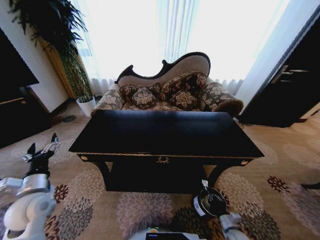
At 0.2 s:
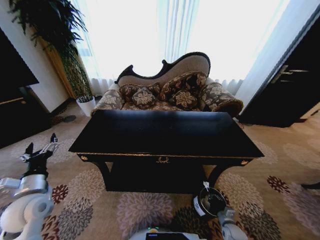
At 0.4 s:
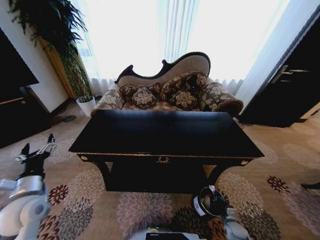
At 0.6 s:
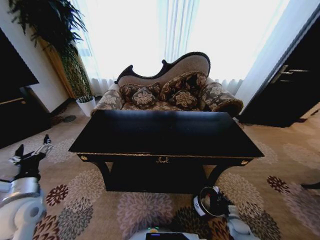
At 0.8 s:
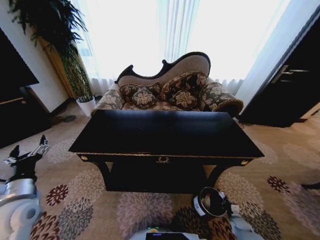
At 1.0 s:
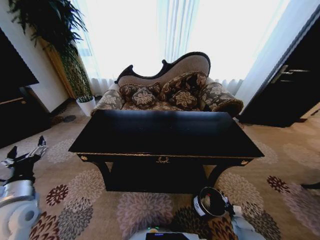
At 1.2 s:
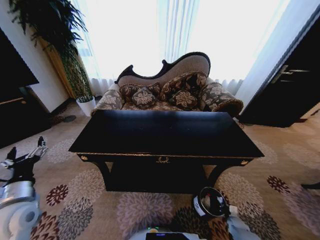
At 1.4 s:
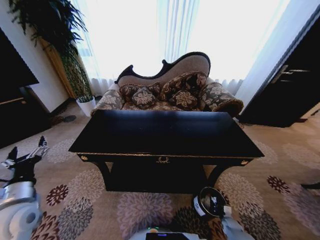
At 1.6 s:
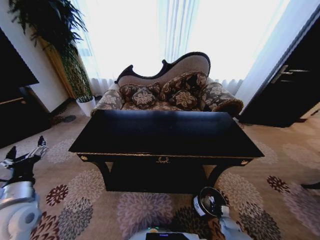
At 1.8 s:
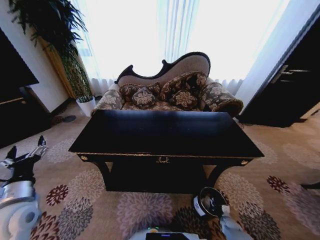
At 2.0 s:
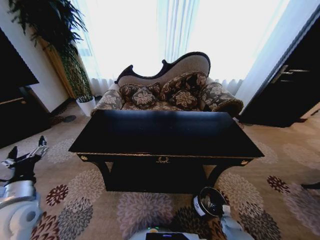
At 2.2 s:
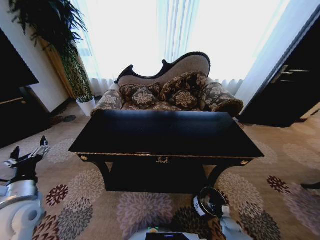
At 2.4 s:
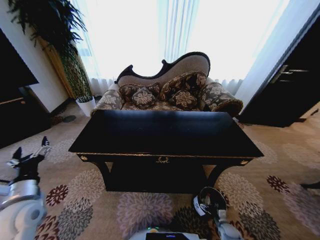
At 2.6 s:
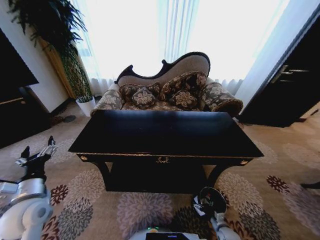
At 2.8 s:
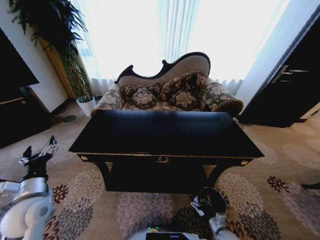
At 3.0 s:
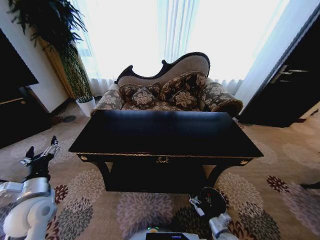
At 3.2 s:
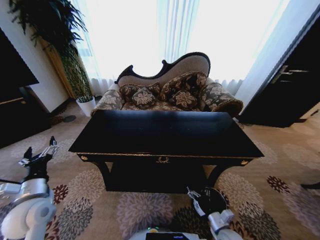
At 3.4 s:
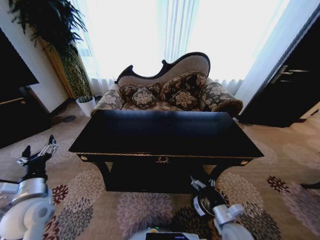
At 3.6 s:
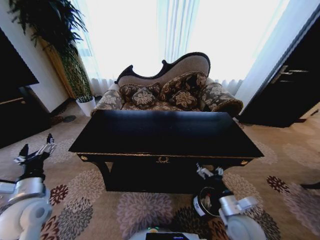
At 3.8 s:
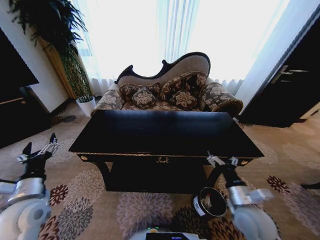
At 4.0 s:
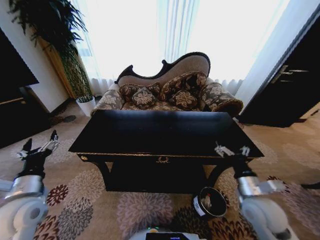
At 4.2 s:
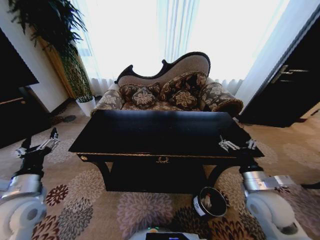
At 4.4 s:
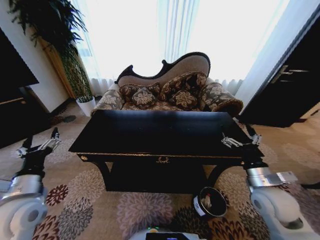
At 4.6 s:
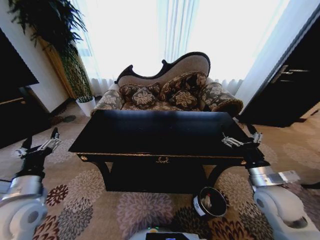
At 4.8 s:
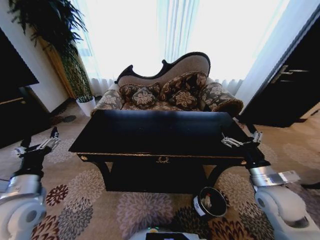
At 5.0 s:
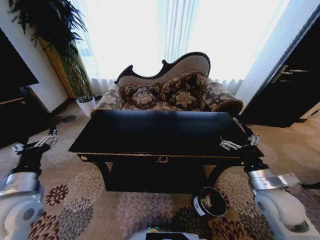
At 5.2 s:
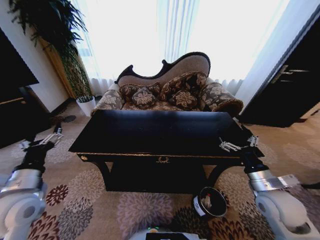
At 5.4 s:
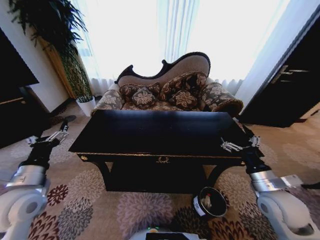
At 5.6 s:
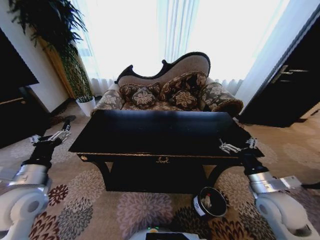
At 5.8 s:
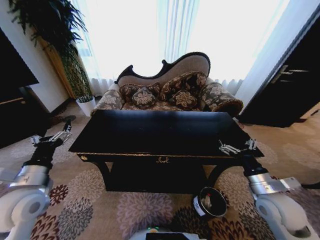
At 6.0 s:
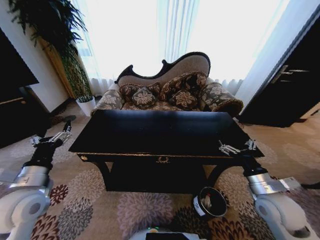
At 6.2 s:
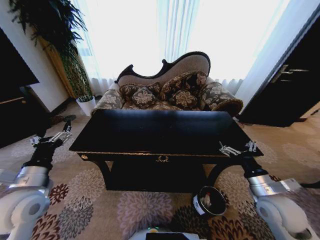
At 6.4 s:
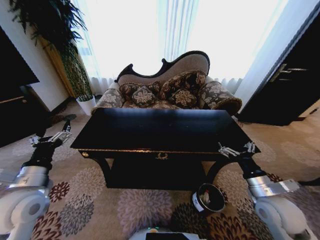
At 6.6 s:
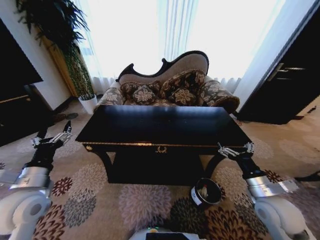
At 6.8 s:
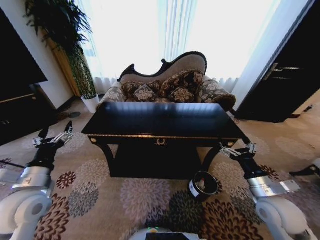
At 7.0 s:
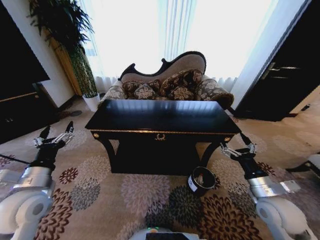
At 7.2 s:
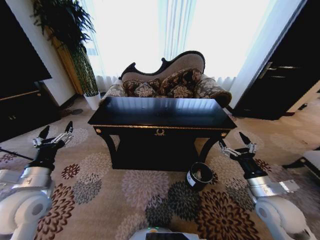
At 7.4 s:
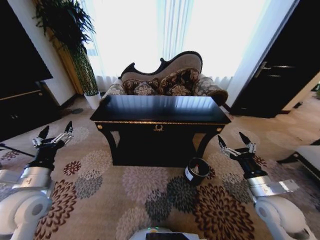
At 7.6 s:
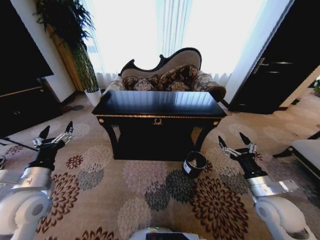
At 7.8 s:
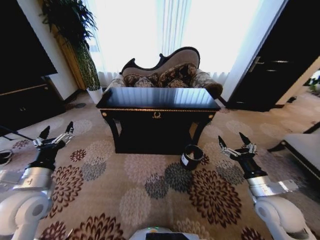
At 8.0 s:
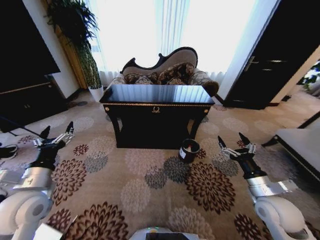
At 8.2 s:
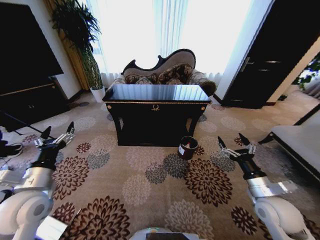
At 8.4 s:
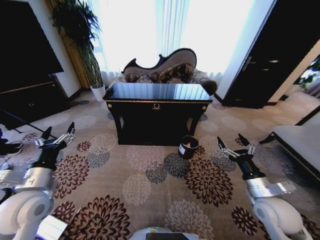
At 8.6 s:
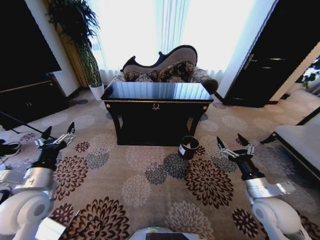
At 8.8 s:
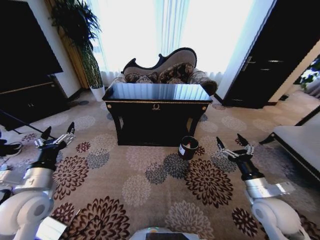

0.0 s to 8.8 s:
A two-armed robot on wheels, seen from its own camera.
Task of the whole recording: Move to the front of the table and place the trash on the table into the trash bin.
0.0 to 1.4 s: The right gripper goes approximately 15 cm downward, to the right and forward.
1.4 to 3.0 s: The right gripper shifts approximately 20 cm upward, to the left and backward, and opens.
3.0 to 4.4 s: The right gripper goes approximately 30 cm upward.
4.4 to 5.8 s: The grippers make only small movements.

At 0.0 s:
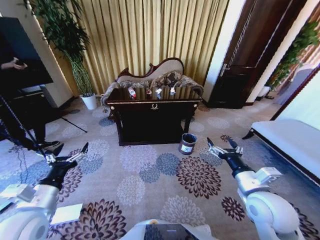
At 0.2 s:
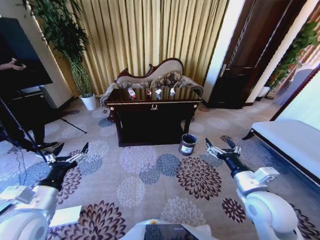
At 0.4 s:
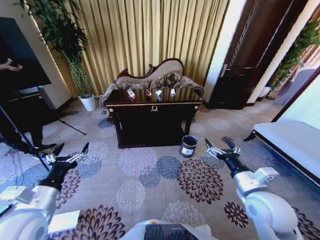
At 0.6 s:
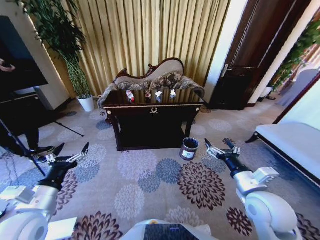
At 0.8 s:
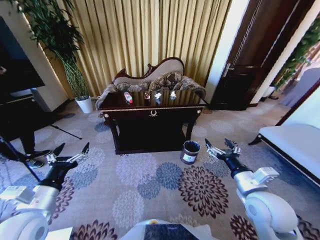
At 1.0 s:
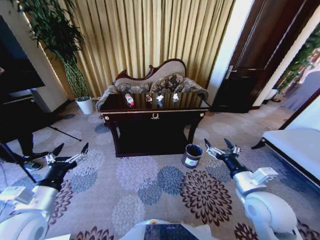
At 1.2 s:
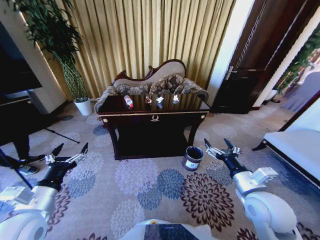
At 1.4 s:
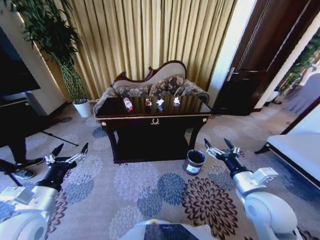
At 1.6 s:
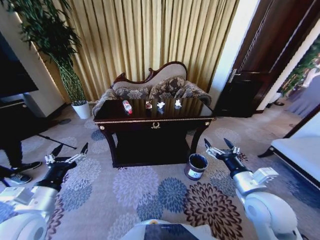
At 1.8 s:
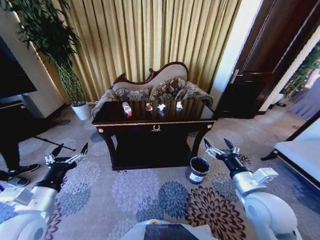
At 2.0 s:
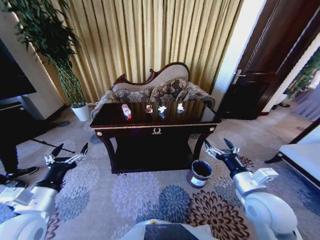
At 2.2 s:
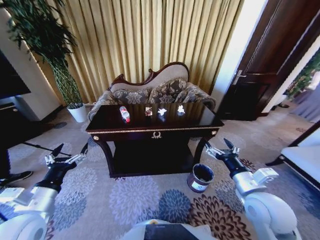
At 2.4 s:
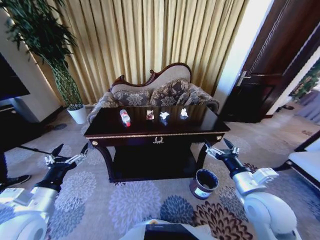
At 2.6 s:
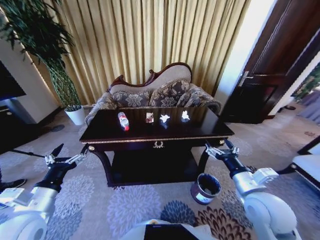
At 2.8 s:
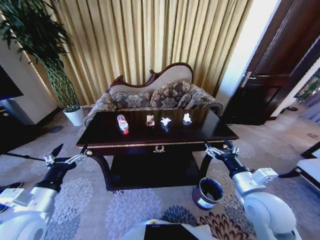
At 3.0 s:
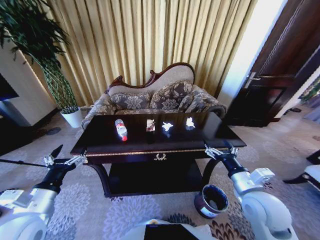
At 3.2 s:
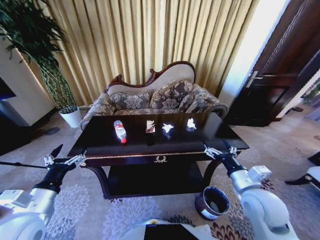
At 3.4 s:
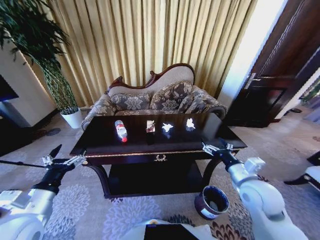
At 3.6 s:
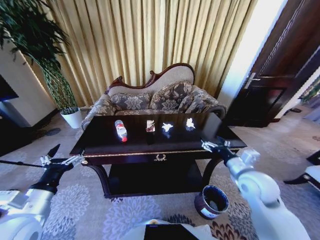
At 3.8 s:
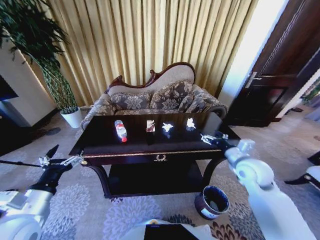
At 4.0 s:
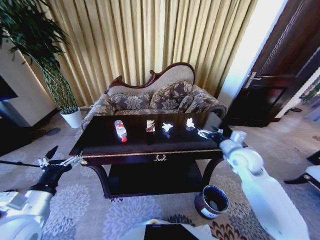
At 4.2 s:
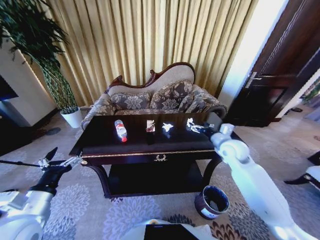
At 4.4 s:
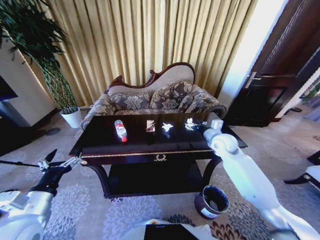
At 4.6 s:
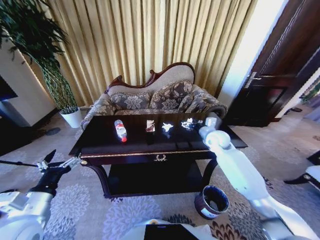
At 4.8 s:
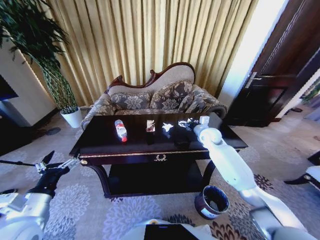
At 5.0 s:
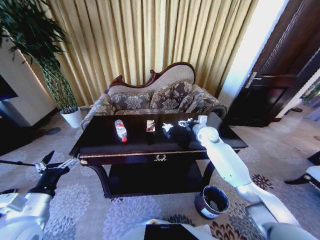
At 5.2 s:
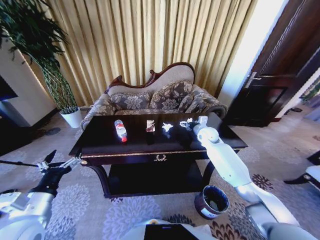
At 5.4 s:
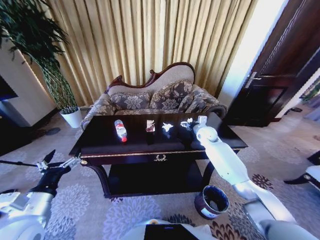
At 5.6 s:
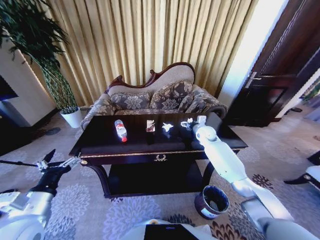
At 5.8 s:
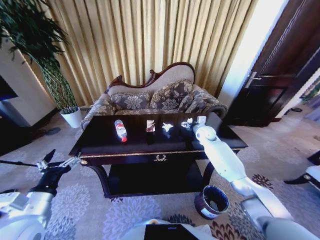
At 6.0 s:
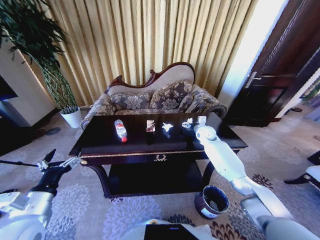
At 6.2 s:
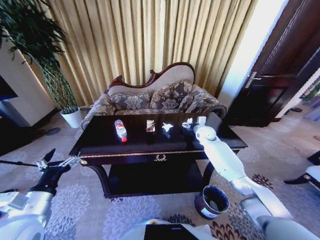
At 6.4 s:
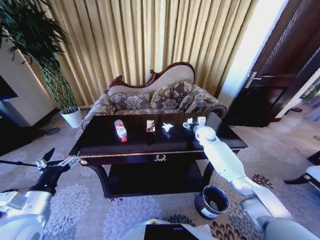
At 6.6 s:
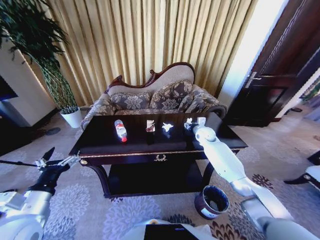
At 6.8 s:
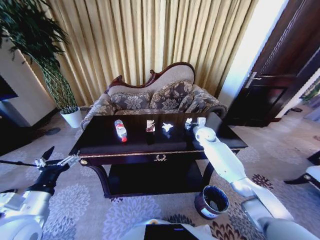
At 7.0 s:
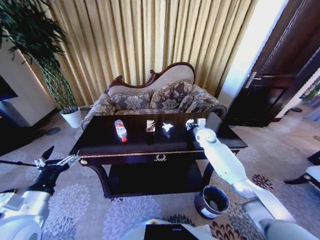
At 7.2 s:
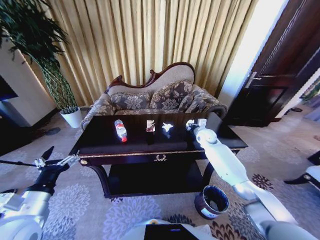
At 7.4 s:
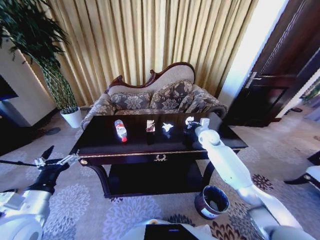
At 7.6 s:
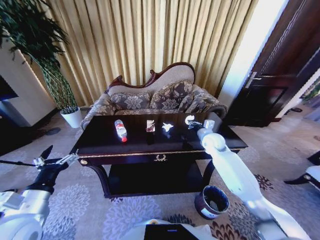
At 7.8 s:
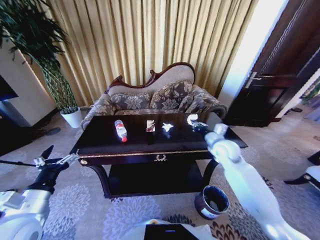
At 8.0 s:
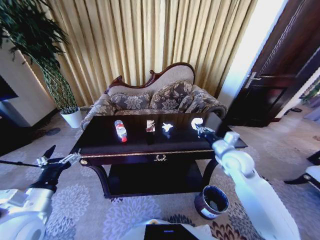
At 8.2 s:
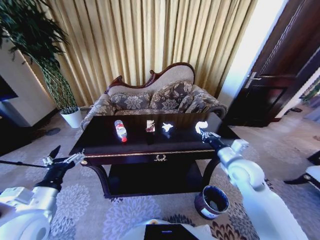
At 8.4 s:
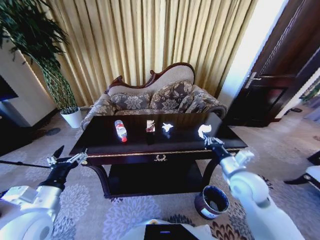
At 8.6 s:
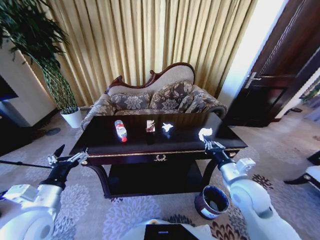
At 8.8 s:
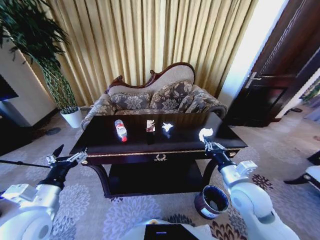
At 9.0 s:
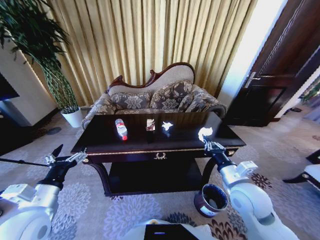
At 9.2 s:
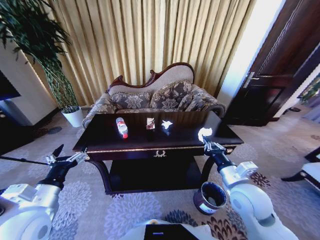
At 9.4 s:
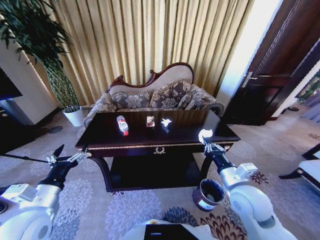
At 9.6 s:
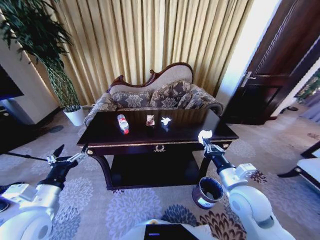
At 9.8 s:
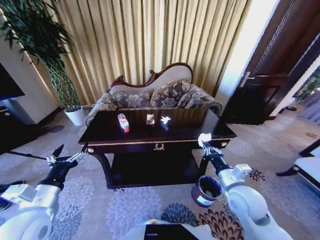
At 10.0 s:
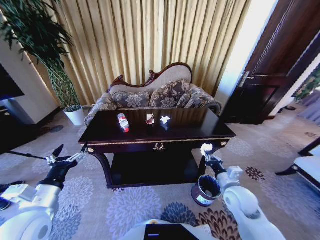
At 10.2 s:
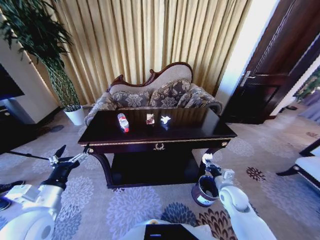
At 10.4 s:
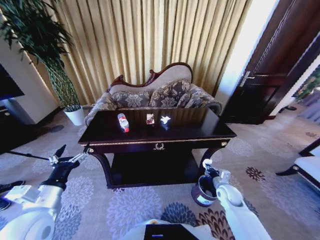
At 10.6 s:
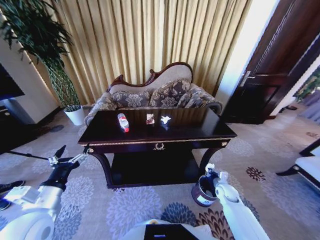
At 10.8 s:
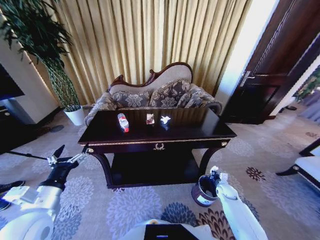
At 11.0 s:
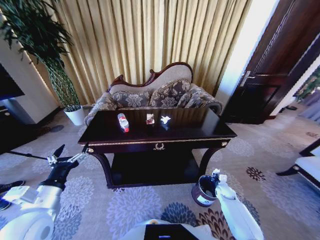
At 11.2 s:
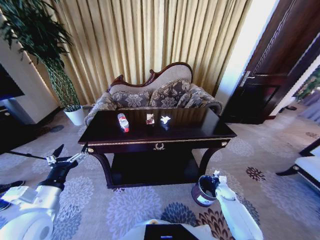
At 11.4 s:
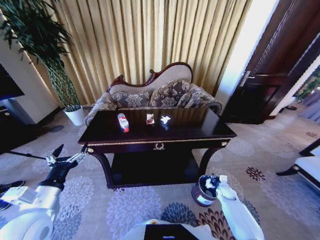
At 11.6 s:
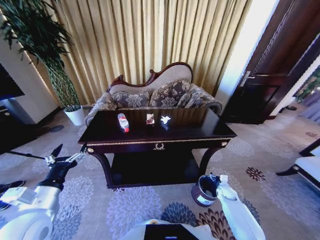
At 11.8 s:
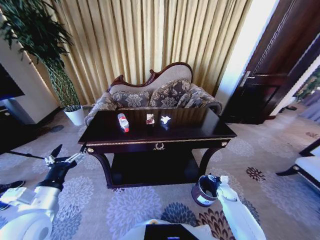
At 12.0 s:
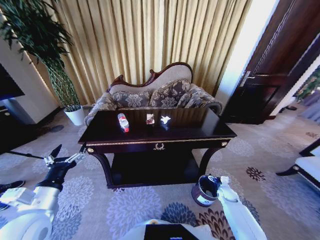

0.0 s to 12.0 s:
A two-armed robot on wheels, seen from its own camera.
Task of the whole recording: Move to the front of the table and place the trash on the table into the trash bin.
3.0 to 4.4 s: The right gripper is displaced forward by about 25 cm.
4.4 to 6.0 s: The right gripper is displaced forward by some 10 cm.
6.0 to 7.6 s: The right gripper heads backward, covering about 10 cm, and closes up.
7.6 to 9.0 s: The right gripper goes roughly 25 cm backward.
9.0 to 10.4 s: The right gripper goes roughly 20 cm downward.
10.4 to 12.0 s: The right gripper travels downward and to the right by about 15 cm, and opens.

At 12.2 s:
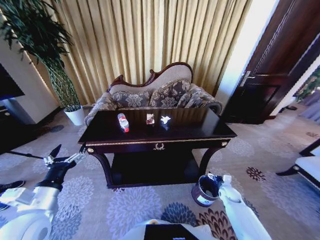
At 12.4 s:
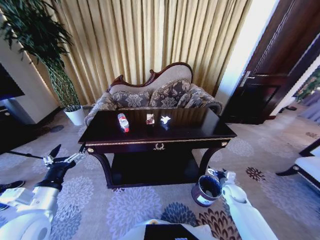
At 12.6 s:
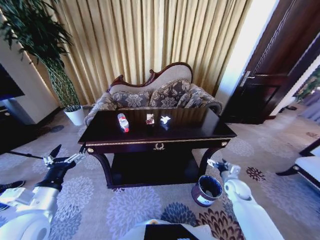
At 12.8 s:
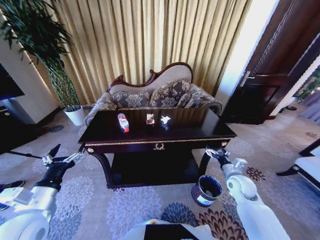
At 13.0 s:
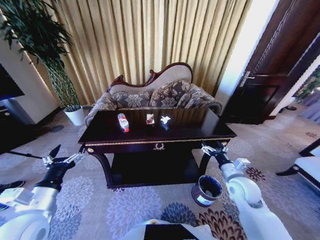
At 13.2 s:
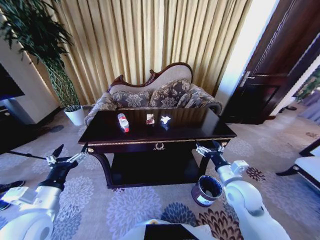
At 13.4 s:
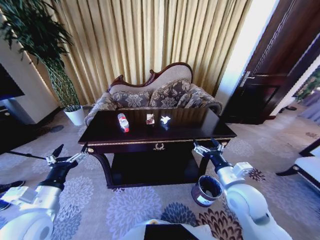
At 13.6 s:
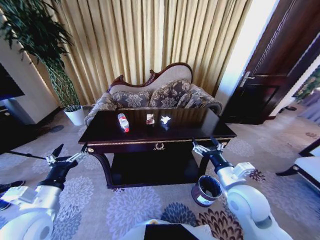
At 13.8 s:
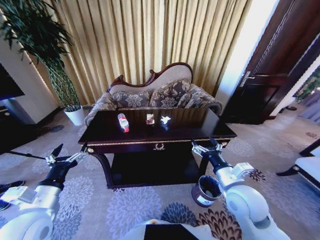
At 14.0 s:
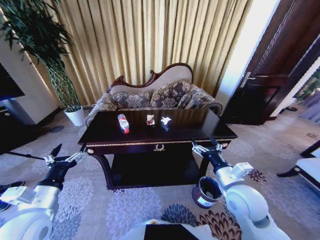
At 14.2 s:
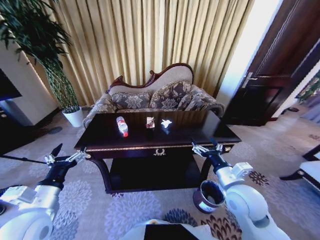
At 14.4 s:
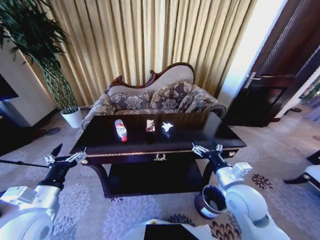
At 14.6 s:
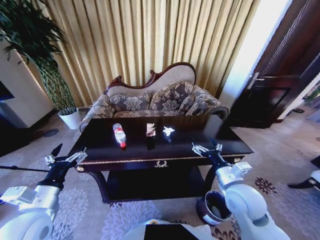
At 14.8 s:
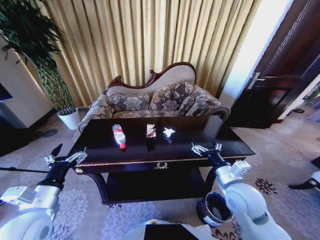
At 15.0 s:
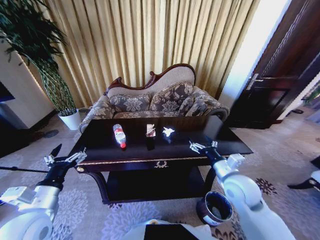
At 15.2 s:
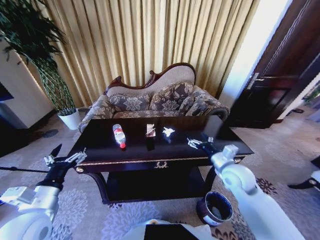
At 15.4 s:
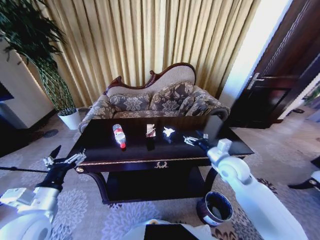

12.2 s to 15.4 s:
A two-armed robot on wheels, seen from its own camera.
Task of the whole recording: Move to the front of the table and place the trash on the table into the trash bin.
12.2 to 13.8 s: The right gripper goes some 35 cm upward and to the left.
13.8 to 15.4 s: The right gripper is displaced forward by about 10 cm.
